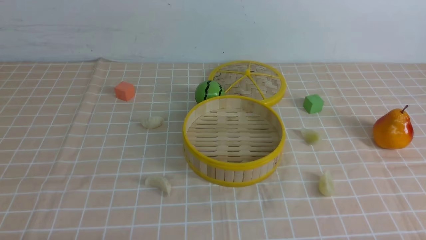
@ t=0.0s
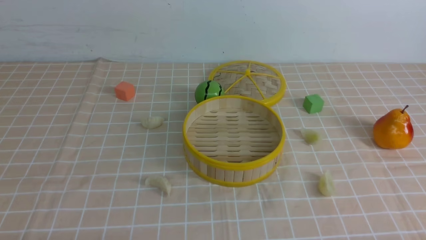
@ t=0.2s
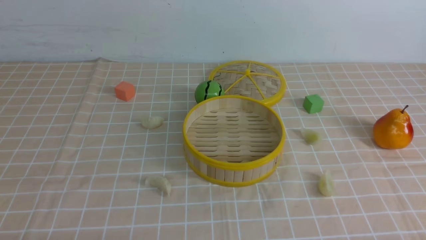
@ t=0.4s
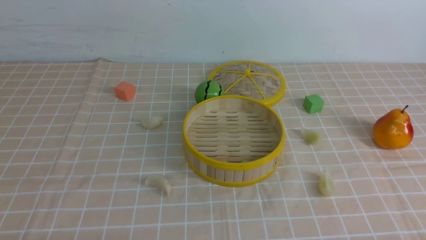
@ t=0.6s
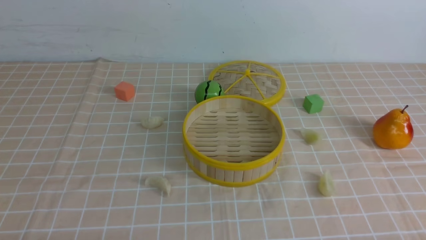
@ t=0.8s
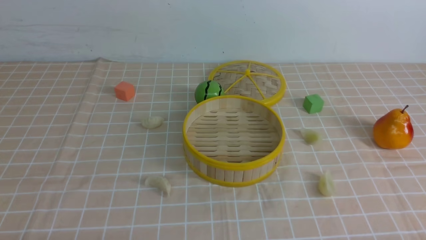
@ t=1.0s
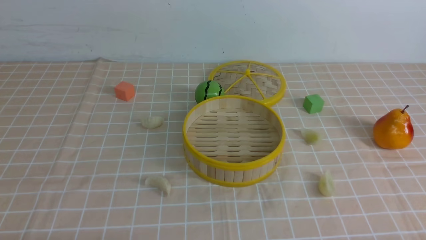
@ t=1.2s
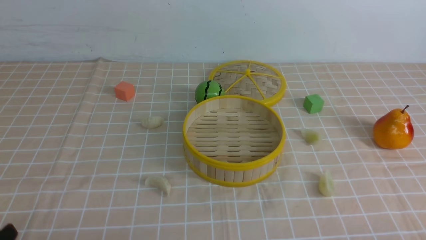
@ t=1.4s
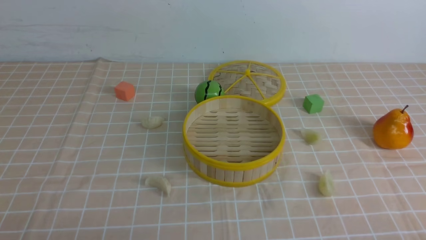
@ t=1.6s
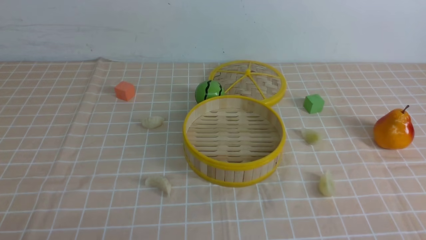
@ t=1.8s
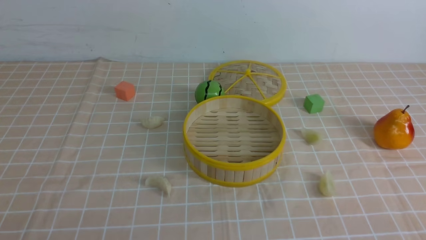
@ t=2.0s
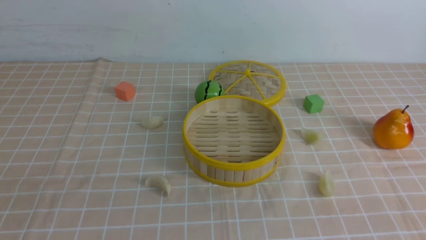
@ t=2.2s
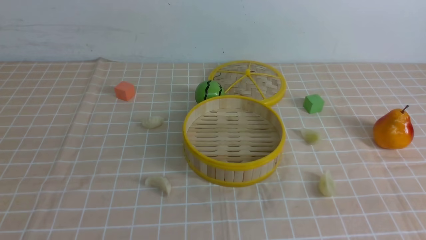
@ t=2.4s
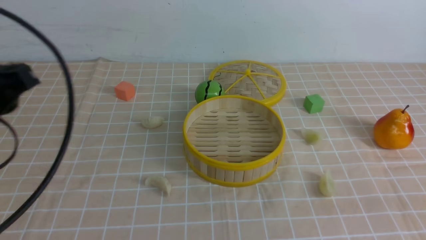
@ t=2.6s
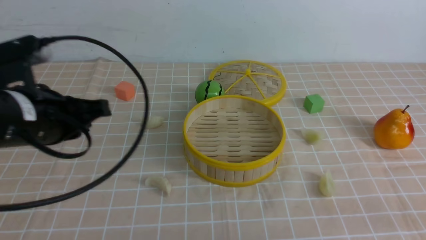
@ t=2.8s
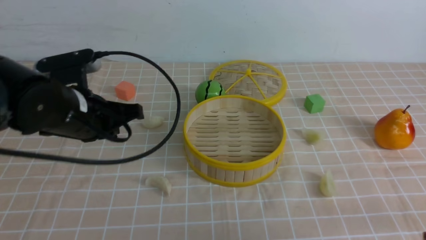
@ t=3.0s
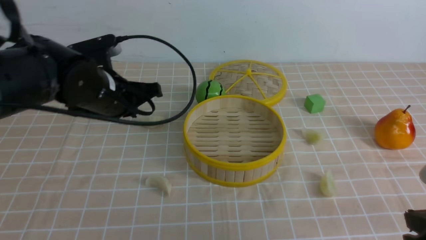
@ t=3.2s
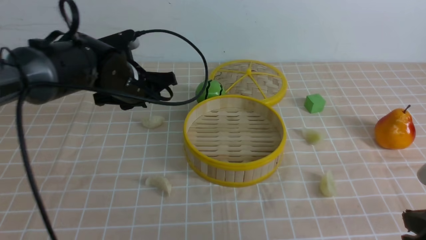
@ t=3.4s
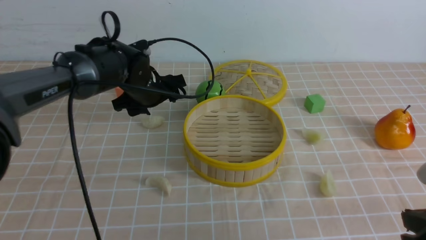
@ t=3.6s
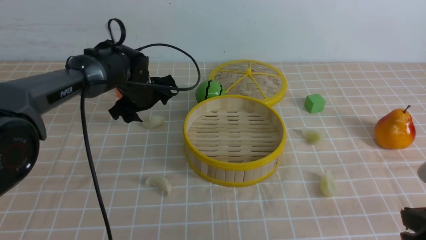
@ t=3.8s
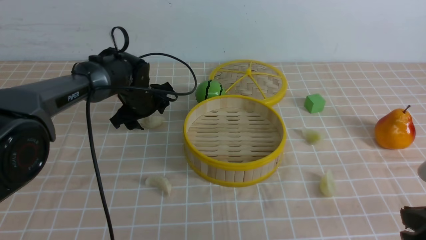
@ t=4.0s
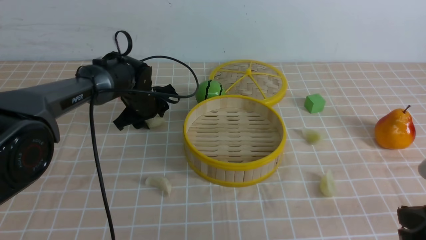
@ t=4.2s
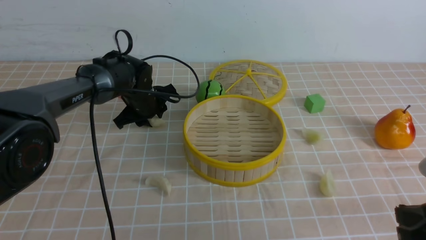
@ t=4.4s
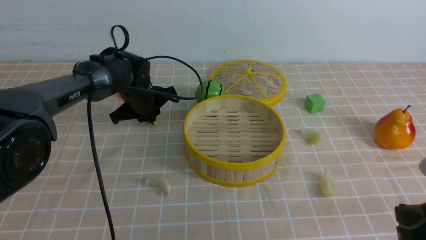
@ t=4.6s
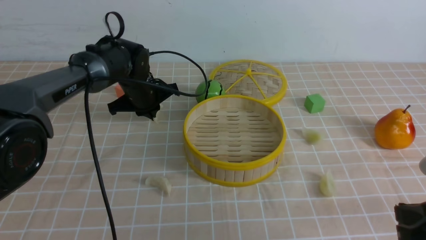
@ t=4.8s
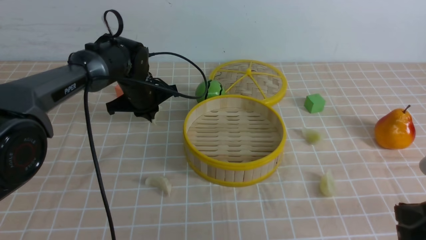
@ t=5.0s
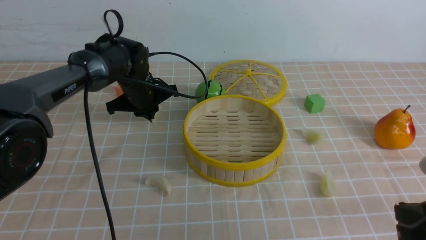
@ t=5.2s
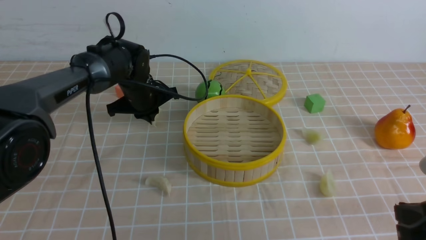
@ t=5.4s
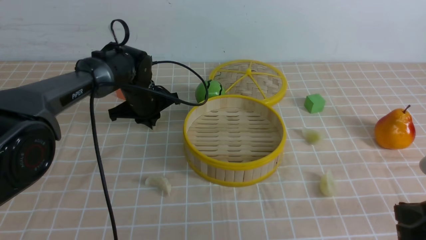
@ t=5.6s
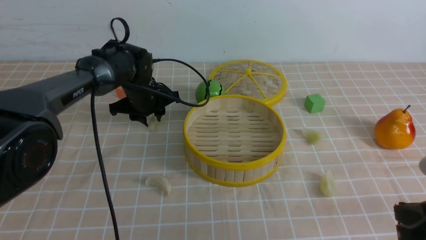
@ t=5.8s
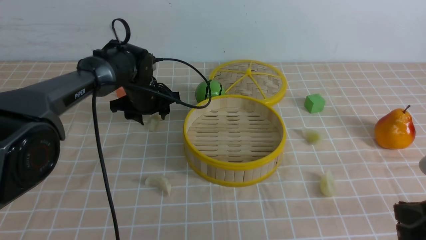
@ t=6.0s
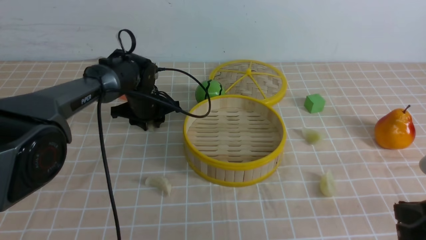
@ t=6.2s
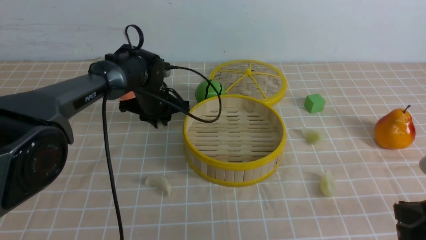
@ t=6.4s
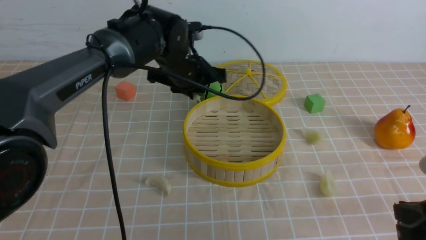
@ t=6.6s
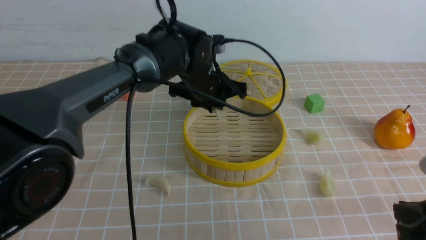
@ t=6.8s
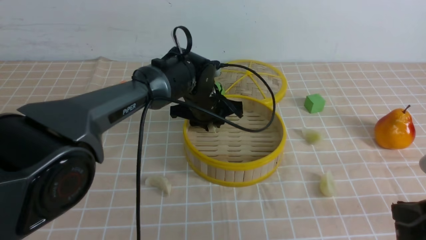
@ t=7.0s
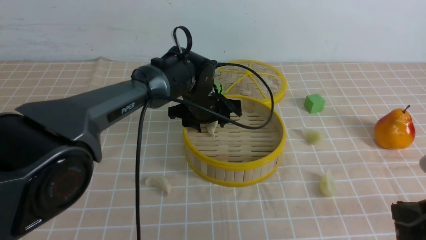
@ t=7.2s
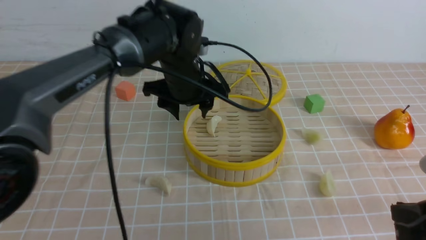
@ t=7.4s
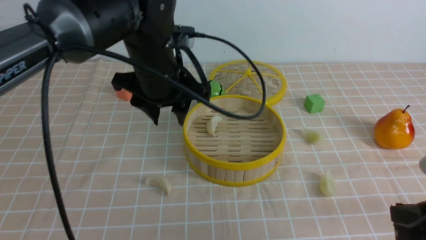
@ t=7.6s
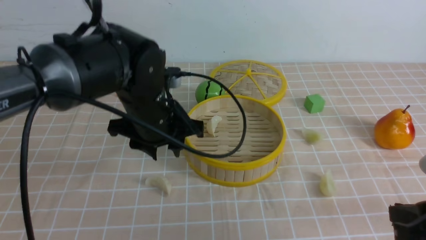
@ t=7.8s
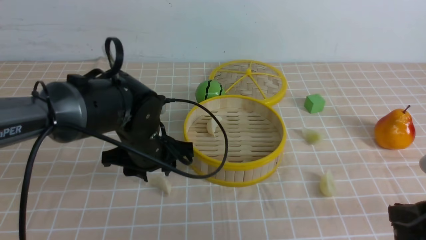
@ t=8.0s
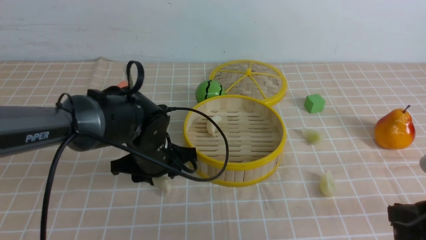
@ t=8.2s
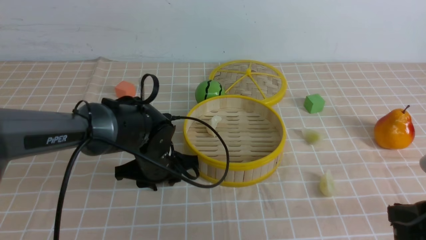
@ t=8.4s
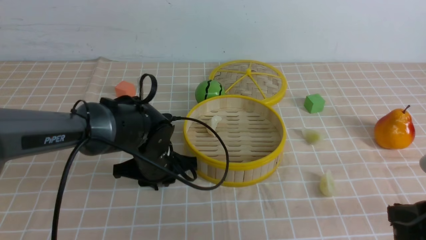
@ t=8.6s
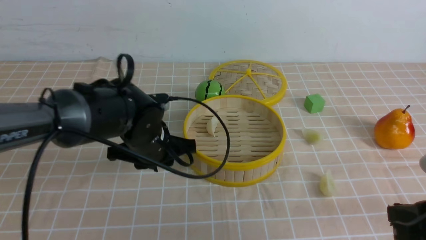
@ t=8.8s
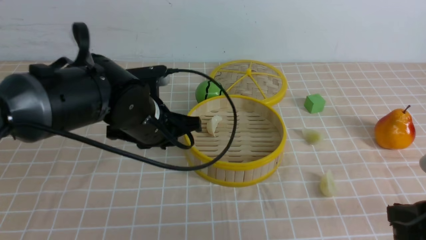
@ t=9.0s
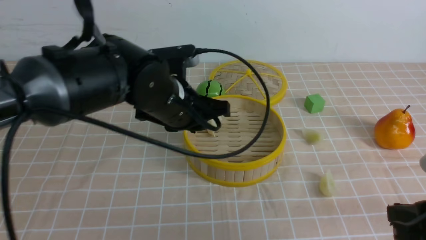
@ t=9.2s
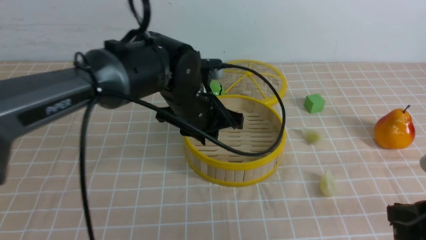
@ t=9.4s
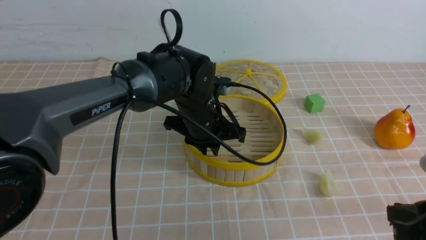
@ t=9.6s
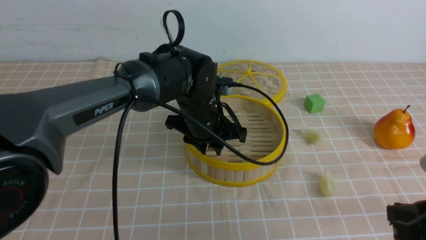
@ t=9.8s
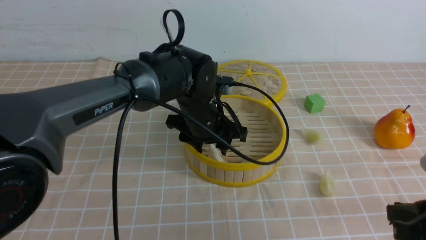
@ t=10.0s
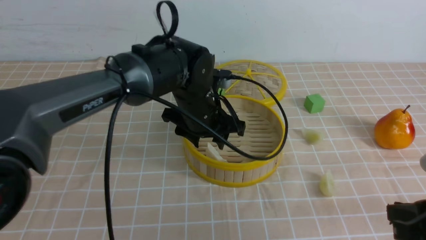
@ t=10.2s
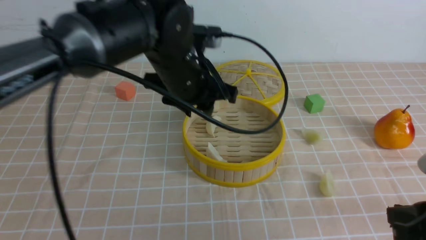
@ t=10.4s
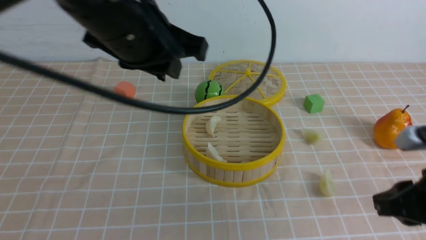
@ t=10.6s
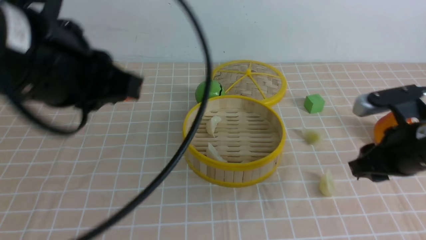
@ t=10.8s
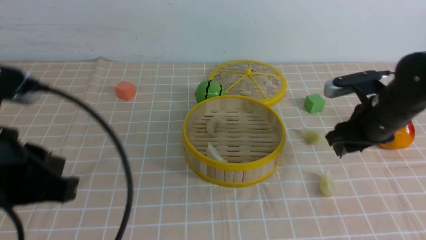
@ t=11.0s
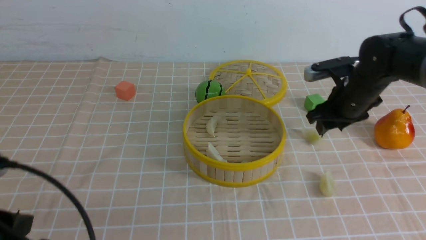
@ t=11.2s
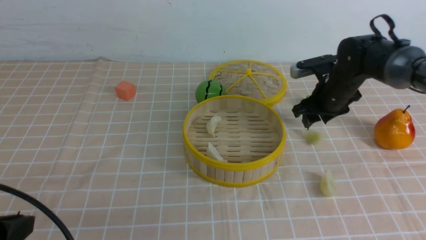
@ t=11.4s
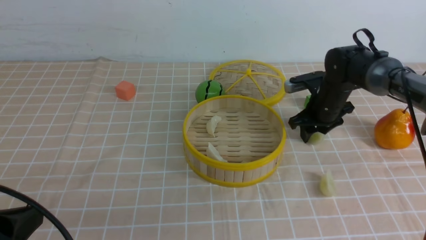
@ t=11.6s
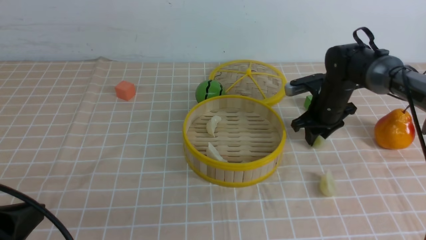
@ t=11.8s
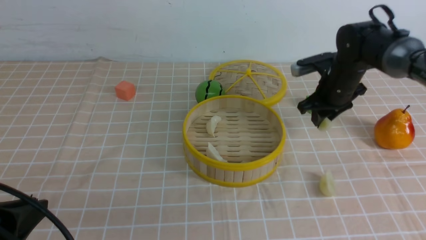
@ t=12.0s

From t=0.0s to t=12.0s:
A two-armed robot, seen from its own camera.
Task of the whole recording: put the dumplings into the steamer on the table with the brown tablecloth.
Step, from t=0.0s to t=6.2s: use the left arm to grab a dumpling.
Step, from t=6.4s to t=7.2s: use the left arm to put the dumpling into the steamer.
Step, from t=7.4s to t=8.4s: use the left arm to grab a dumpling.
Step, from t=8.6s to t=10.2s: use the left arm to put the dumpling into the steamer.
Step, from t=10.4s to t=11.6s: use the right arm to grab a dumpling.
From t=1.6s to t=3.0s: The right gripper moves forward, about 10 cm, and closes, while the left gripper is displaced forward by roughly 25 cm, and closes.
From t=3.0s to t=4.4s: The left gripper shifts roughly 20 cm forward and downward, and opens, then closes once more.
From t=4.4s to t=6.0s: The left gripper closes, then opens again.
From t=6.0s to t=7.6s: The left gripper moves backward, upward and to the right, about 20 cm.
From t=7.6s to t=9.0s: The left gripper moves about 15 cm downward and comes back, and closes up.
From t=9.0s to t=10.4s: The left gripper moves upward, some 10 cm.
From t=10.4s to t=12.0s: The left gripper is displaced backward and to the left by approximately 30 cm, and closes up. The right gripper goes some 30 cm forward.

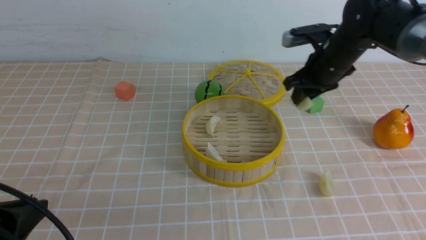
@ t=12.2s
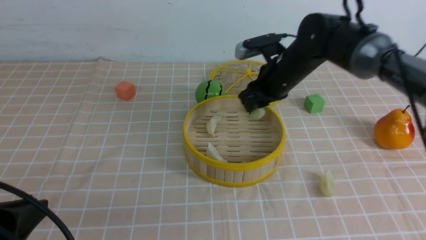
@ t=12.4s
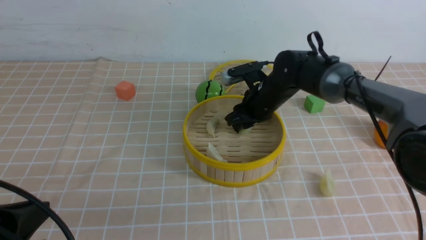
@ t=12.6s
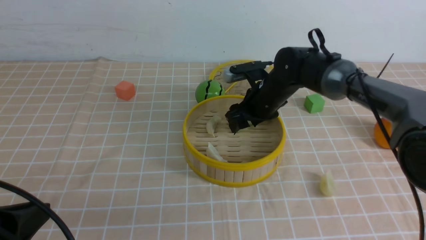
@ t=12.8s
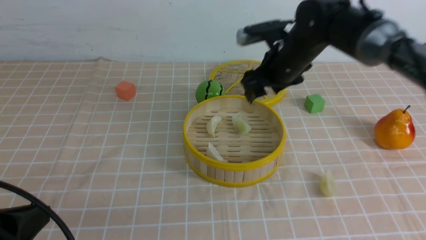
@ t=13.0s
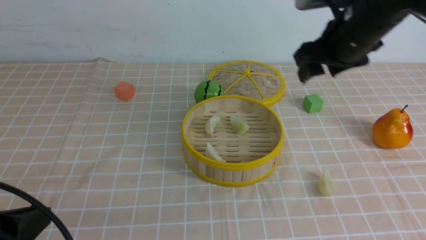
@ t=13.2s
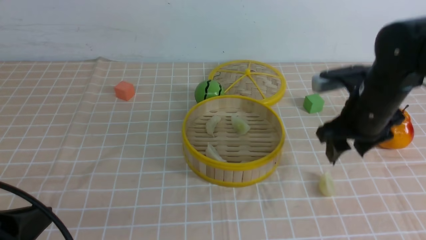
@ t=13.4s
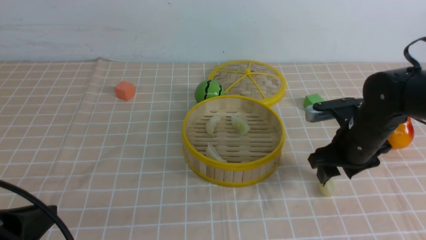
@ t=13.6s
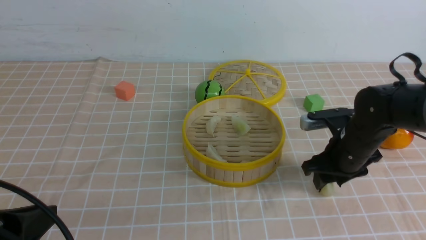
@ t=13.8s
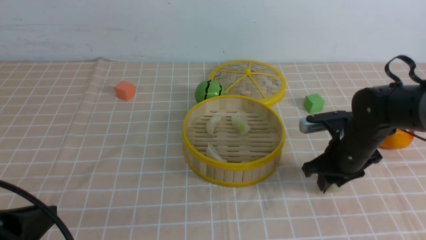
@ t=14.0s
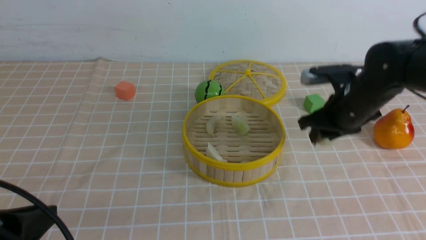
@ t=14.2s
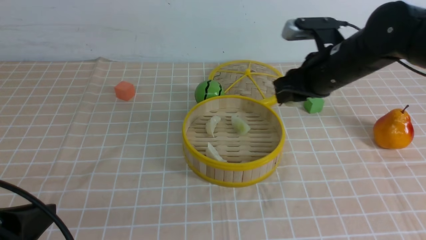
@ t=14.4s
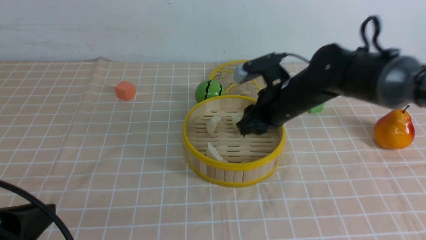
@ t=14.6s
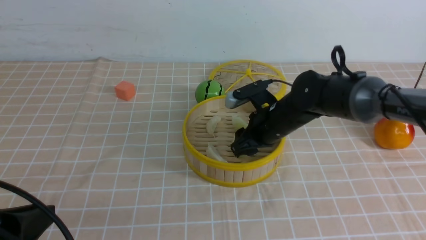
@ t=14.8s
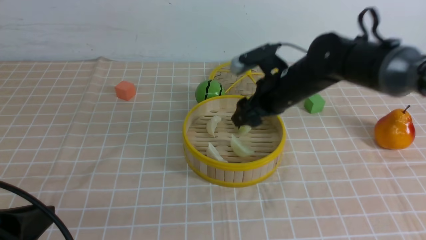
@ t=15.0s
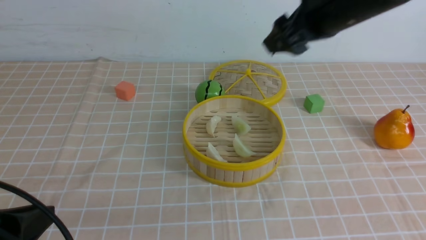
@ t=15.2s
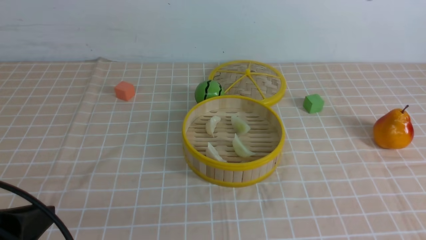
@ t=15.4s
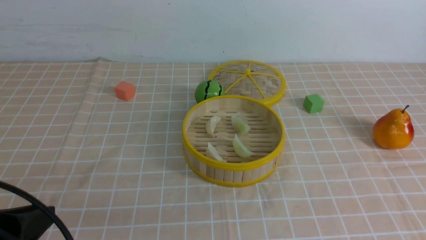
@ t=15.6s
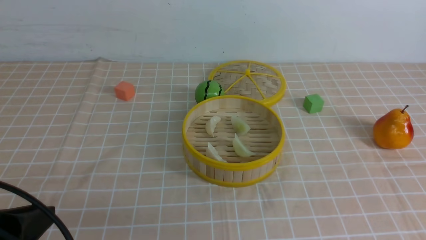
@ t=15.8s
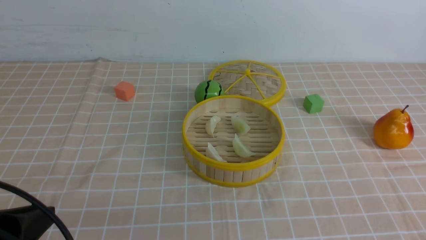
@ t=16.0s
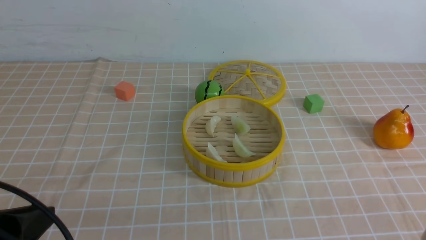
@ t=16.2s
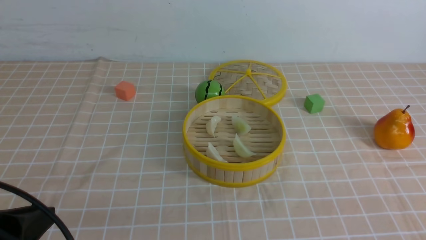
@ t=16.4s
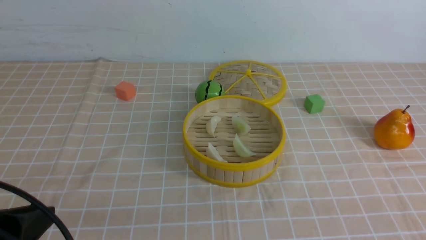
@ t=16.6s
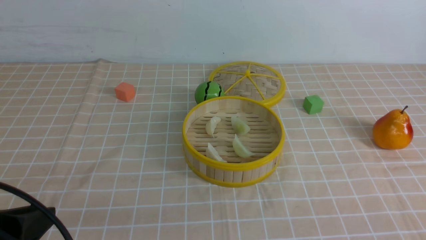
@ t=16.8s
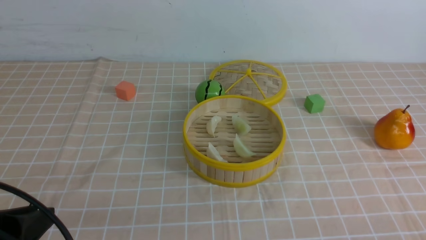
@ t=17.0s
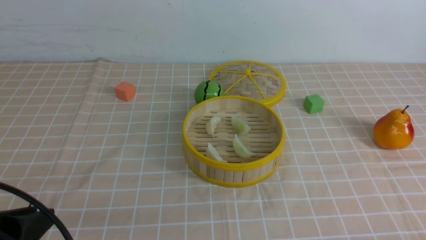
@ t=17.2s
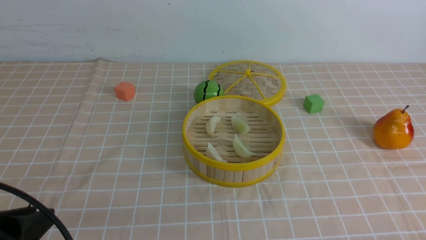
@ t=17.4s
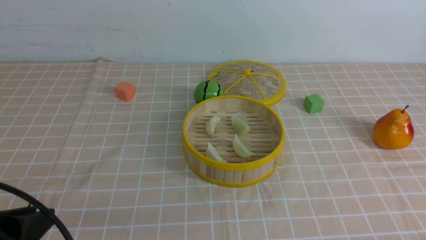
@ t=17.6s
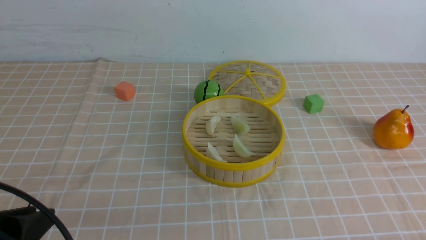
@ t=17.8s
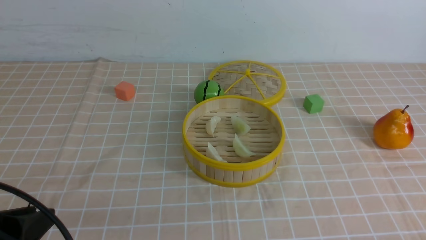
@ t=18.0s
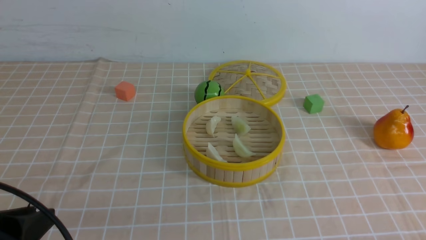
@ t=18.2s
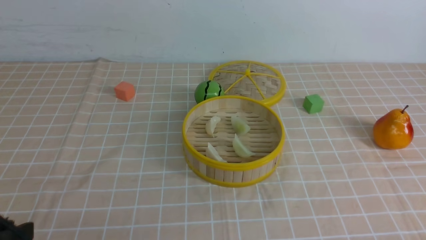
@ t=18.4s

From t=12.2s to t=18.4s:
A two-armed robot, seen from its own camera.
Task of the whole recording: put the dumplings into the steamer on the table with the brown tablecloth.
Step, from t=12.2s to t=12.8s: use the right arm to put the dumpling into the steamer.
Step, from t=13.2s to t=13.8s: use the right arm to grab a dumpling.
Step, from t=14.0s to t=14.8s: use the right arm to put the dumpling into the steamer.
From t=12.2s to t=13.8s: The right gripper moves up and down over approximately 10 cm, changing direction 2 times.
From t=13.8s to t=15.4s: The right gripper moves up and down over roughly 30 cm, changing direction 2 times.
